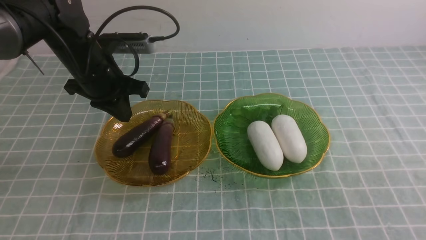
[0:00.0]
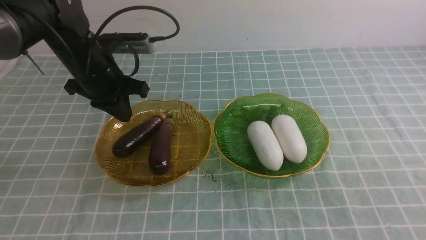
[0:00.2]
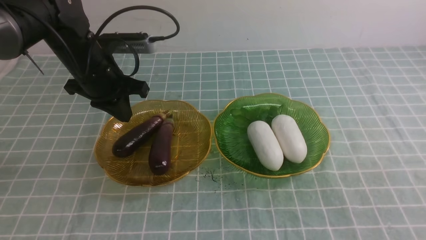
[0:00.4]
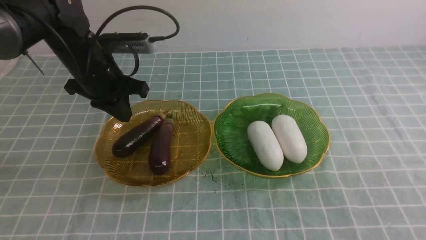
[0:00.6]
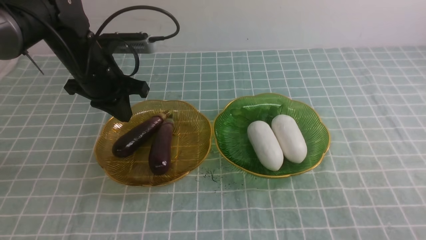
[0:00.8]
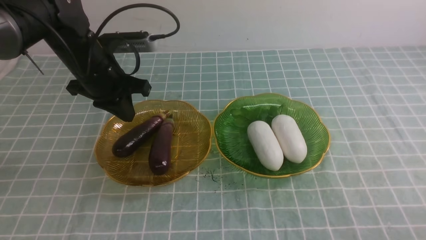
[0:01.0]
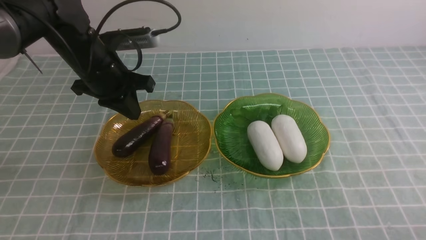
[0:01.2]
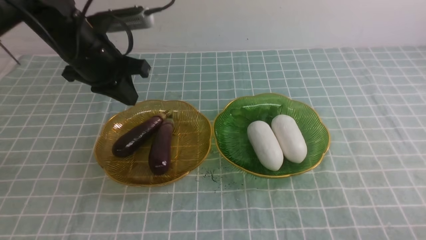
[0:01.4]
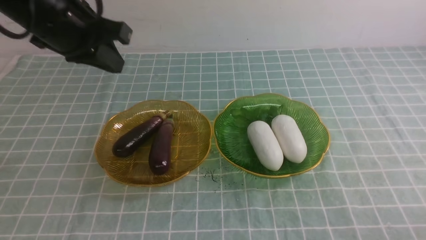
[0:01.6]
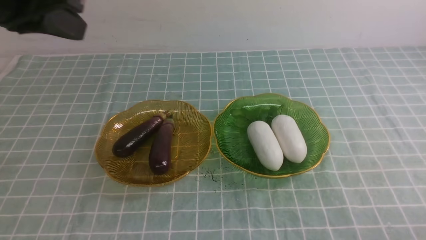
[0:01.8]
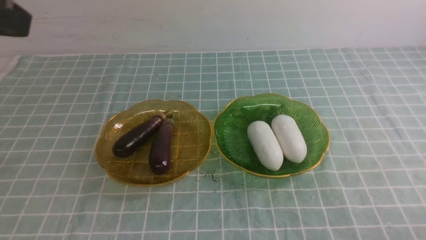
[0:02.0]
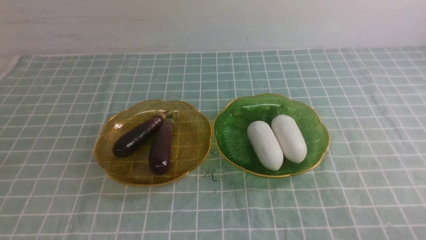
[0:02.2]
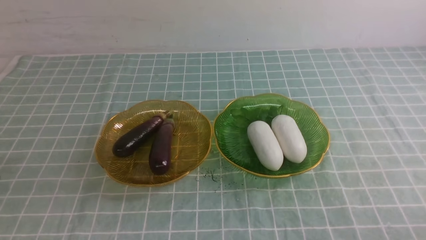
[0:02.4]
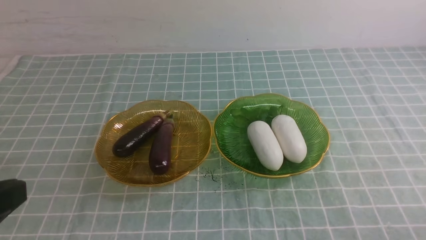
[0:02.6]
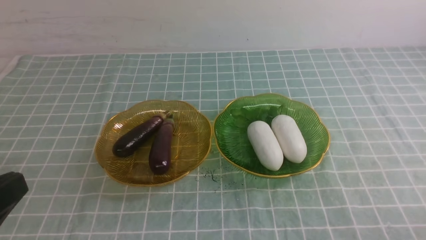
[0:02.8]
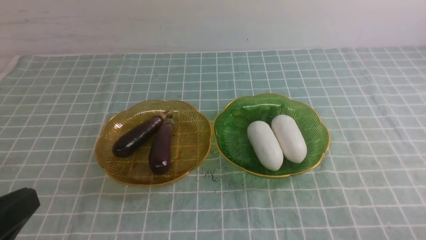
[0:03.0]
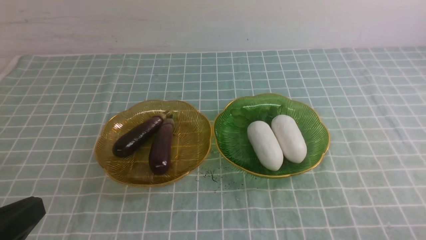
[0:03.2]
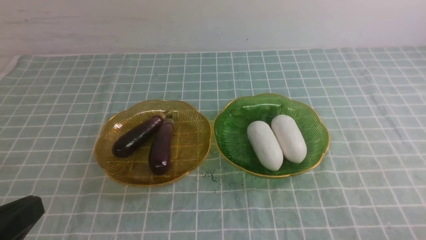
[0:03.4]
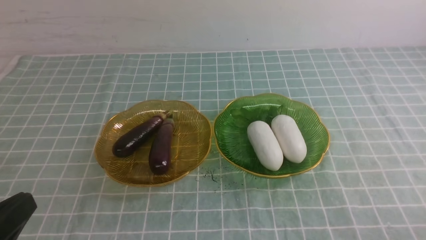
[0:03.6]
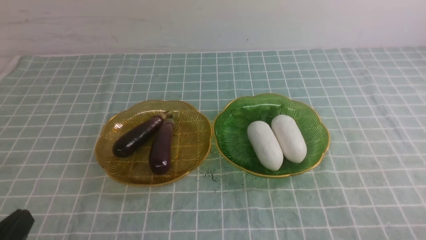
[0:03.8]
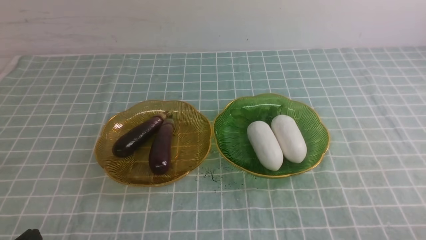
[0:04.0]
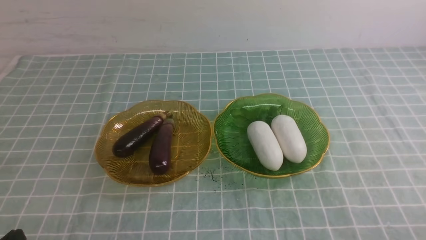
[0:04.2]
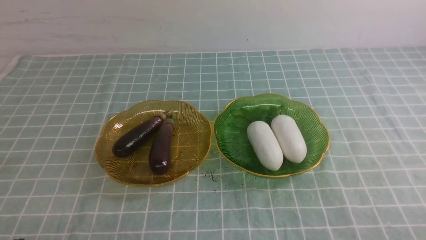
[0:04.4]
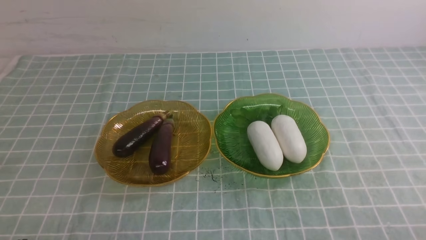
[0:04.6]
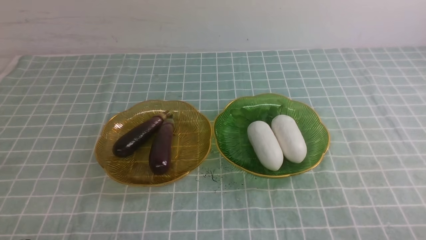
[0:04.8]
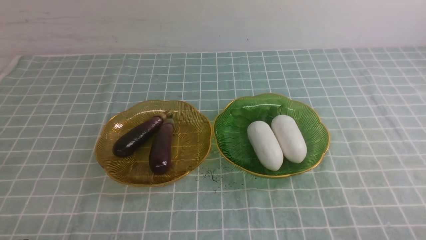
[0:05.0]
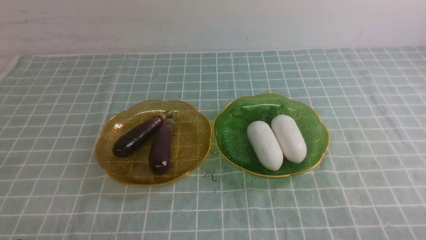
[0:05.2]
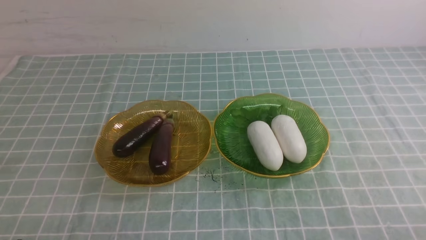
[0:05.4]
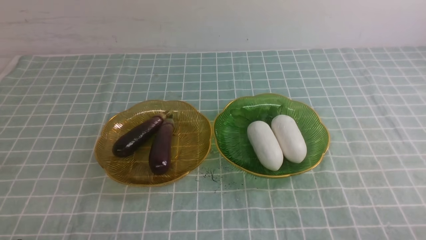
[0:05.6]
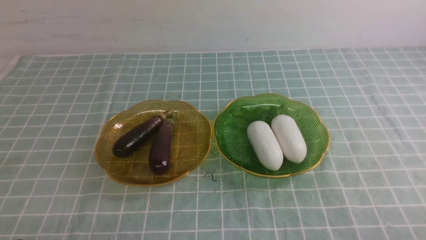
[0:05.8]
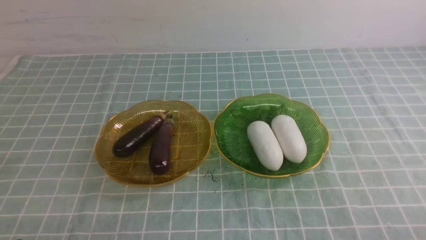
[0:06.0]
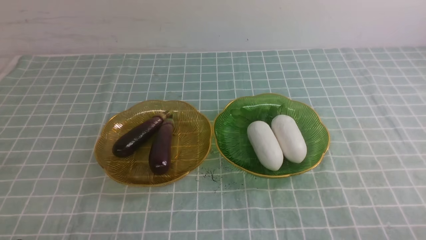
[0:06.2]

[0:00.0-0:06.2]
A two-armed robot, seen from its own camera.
0:00.0 to 0:01.6: The right gripper shifts about 10 cm downward. The left gripper goes roughly 15 cm upward and backward.
0:01.6 to 0:03.2: The left gripper goes roughly 30 cm backward.
0:03.2 to 0:04.6: The left gripper goes approximately 15 cm downward.
0:04.6 to 0:06.2: The two grippers keep their place.
